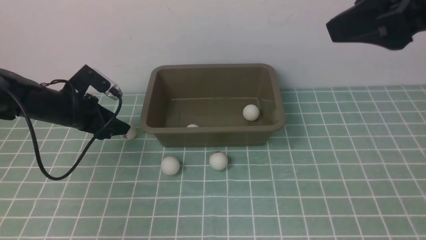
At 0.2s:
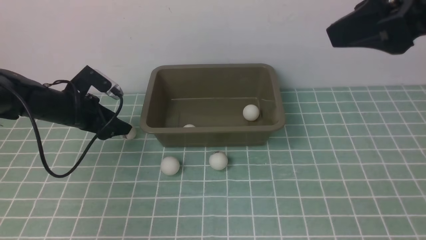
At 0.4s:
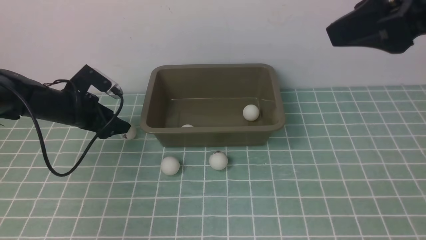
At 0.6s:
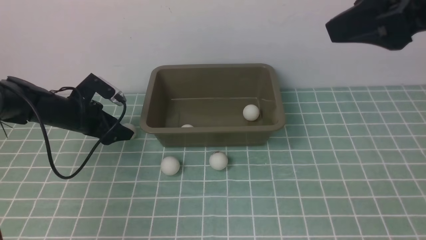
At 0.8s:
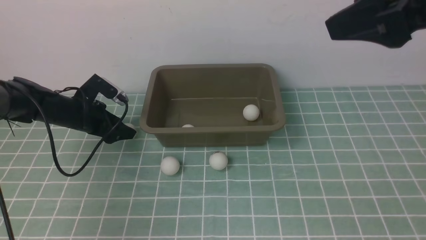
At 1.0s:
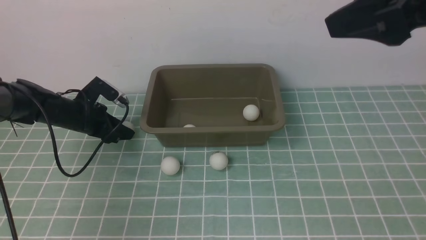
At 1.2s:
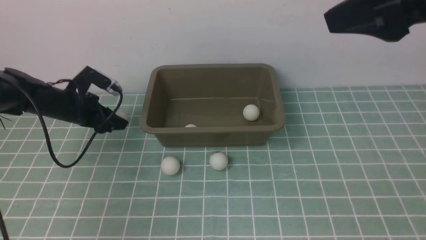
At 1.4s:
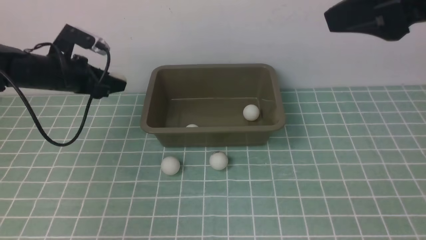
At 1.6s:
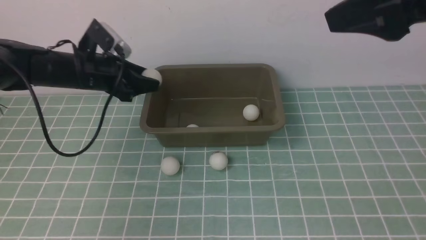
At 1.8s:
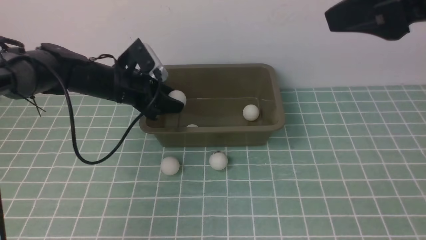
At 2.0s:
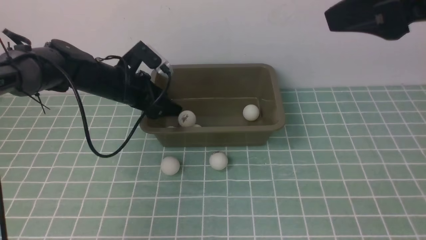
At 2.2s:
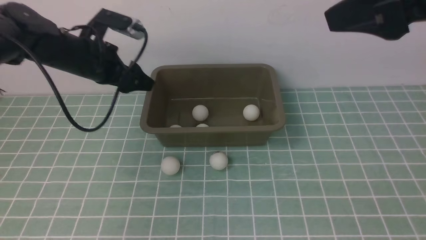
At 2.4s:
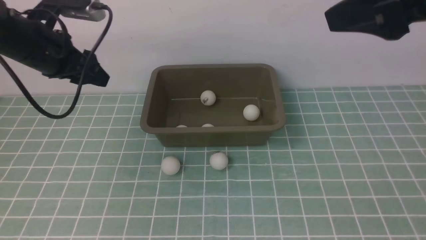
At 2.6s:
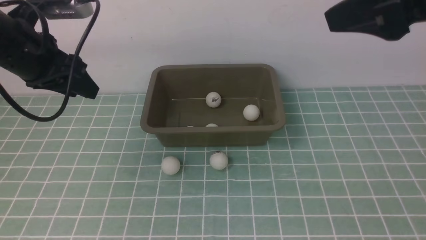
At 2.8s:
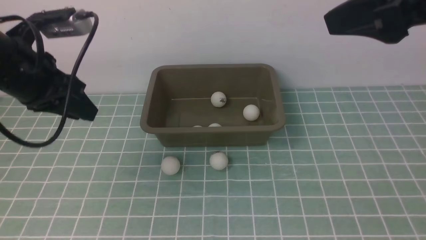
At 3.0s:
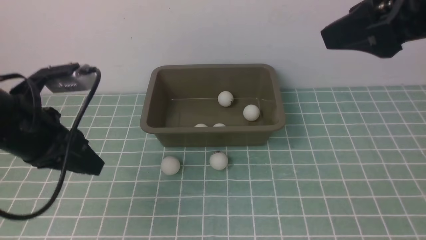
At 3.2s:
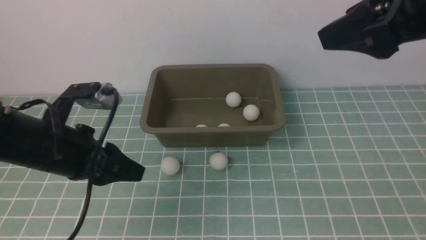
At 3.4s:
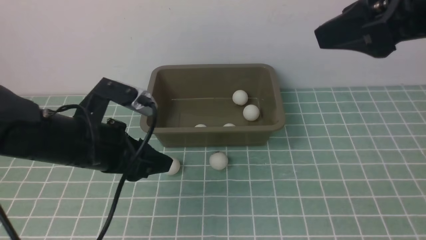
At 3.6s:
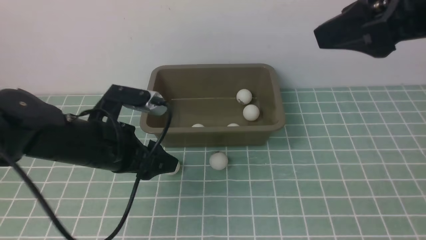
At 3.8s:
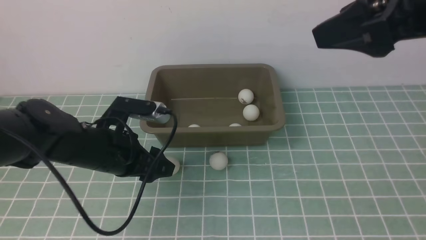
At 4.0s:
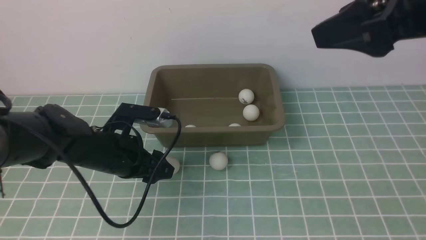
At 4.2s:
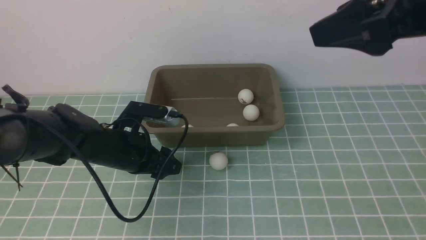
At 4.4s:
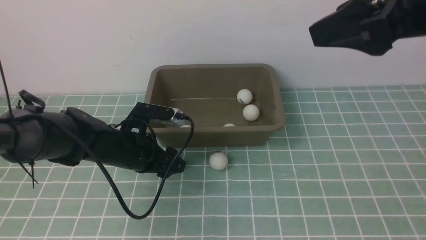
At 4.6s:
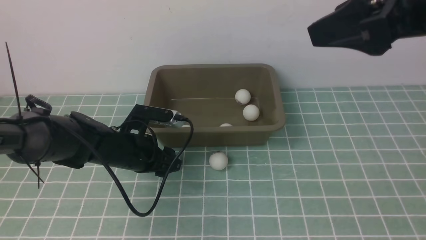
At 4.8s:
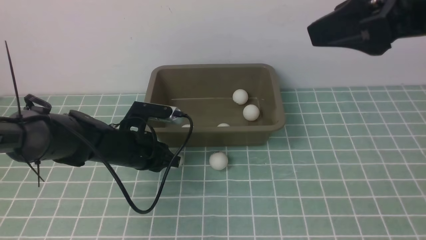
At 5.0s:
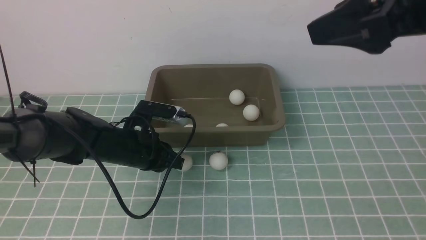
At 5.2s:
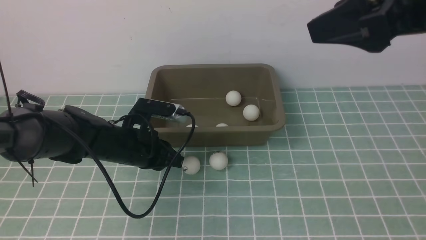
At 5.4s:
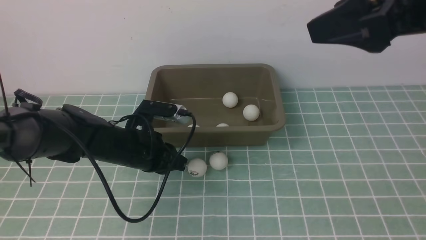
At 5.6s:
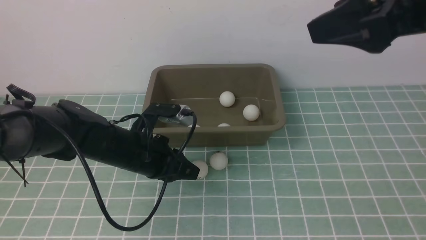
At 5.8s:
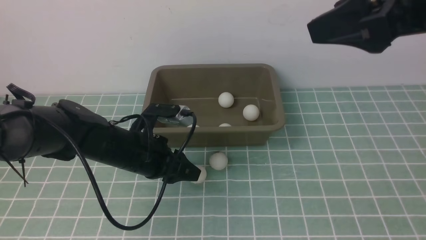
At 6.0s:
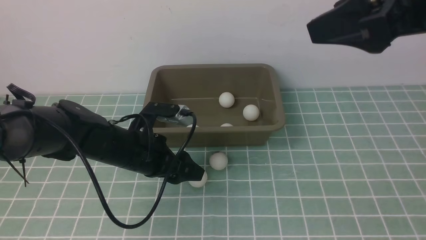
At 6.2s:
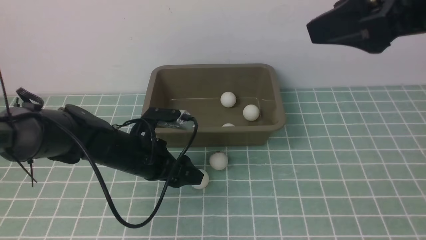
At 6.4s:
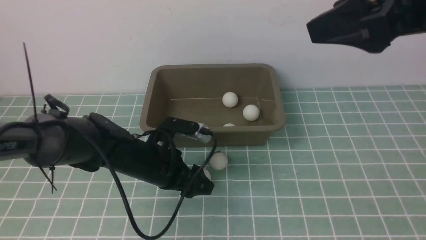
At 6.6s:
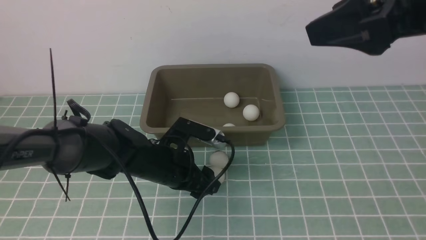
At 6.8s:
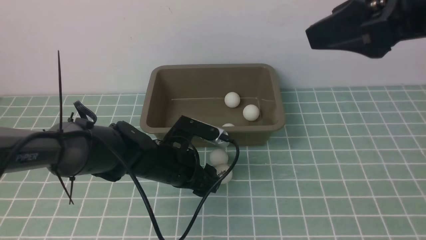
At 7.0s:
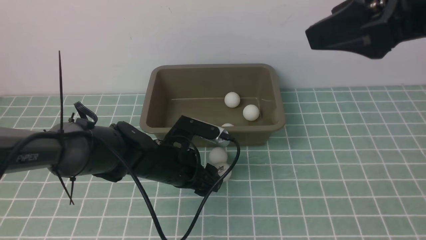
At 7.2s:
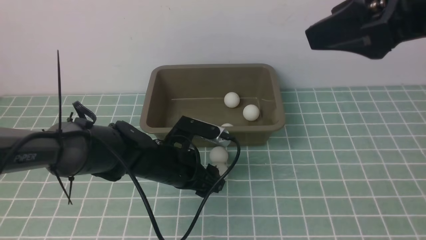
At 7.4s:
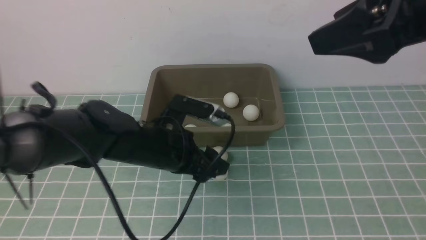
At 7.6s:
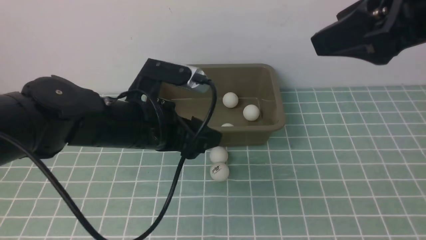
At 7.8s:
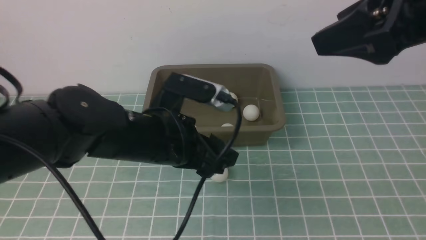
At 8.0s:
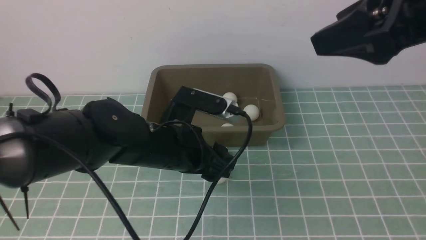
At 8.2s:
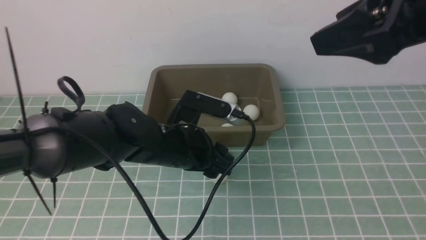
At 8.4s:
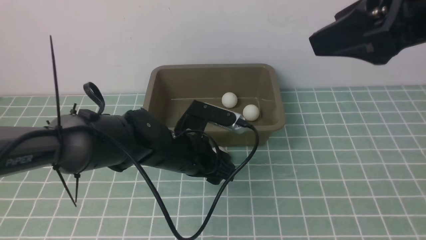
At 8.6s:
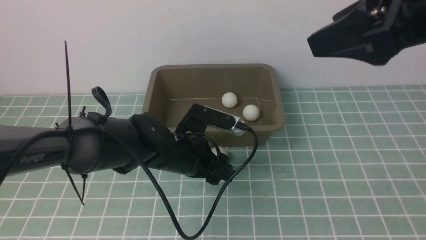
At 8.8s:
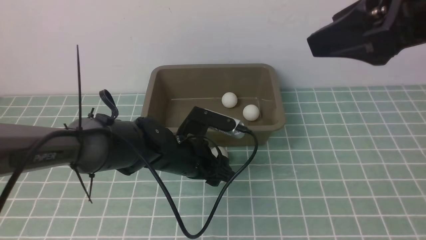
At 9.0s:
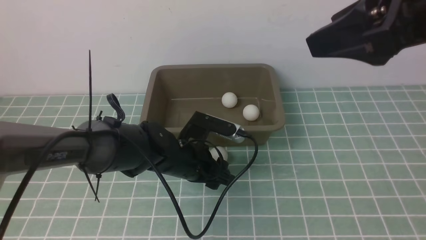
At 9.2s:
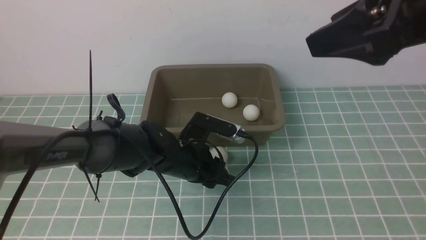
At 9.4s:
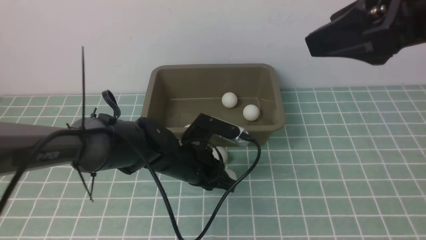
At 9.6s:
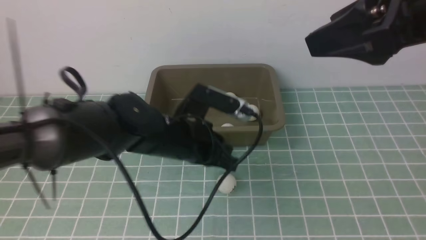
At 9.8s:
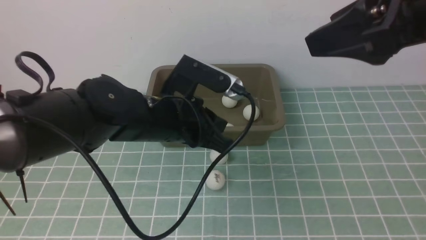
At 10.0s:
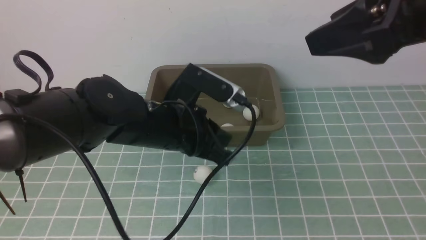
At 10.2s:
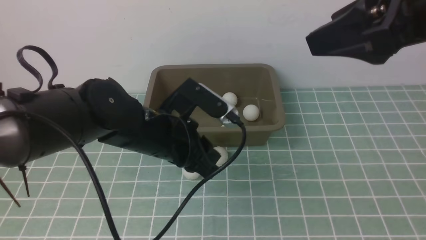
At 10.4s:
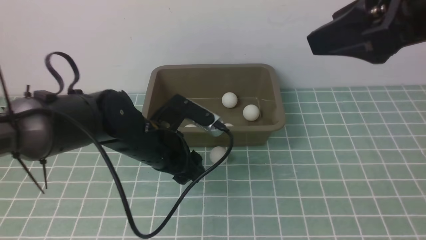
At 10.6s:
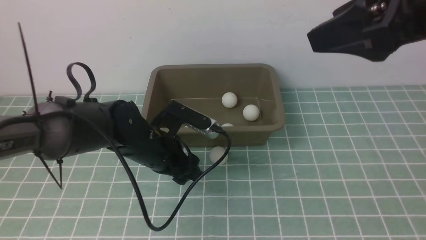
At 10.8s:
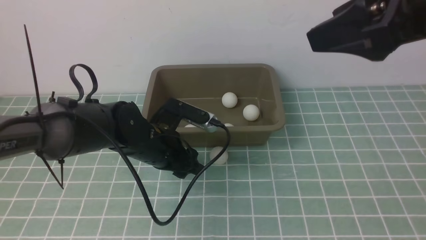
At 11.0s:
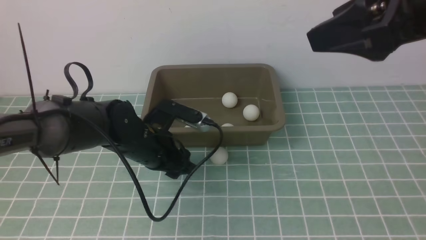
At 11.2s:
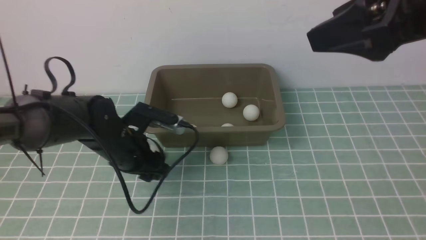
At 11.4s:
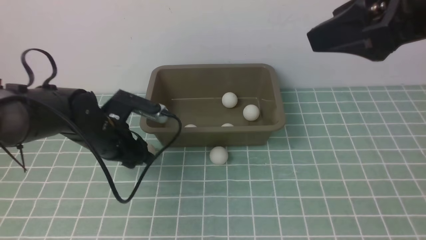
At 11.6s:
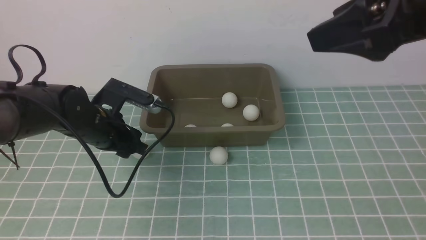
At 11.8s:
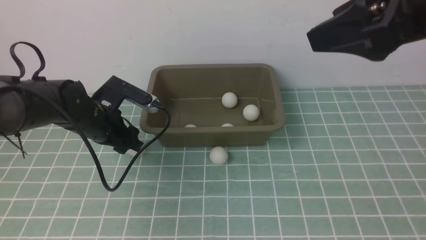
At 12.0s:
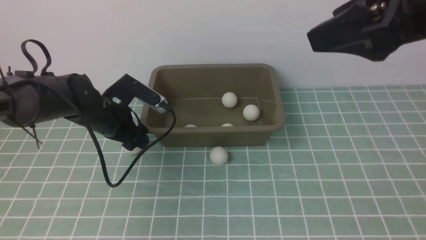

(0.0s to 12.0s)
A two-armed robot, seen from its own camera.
Step, 1.6s - 2.2s: use the left arm to put the table tennis ball into the box.
0.0s - 1.6s: The left gripper moves to the right, roughly 10 cm.
1.6s - 3.0s: The left gripper shifts about 15 cm backward and upward.
3.0s - 4.4s: The left gripper heads downward and to the right, covering some 15 cm, and opens up.
4.4s - 6.0s: The left gripper closes and opens again.
6.0s - 7.6s: The left gripper shifts approximately 10 cm upward.
7.6s - 9.0s: The left gripper heads downward, covering about 10 cm.
9.0s - 10.4s: The left gripper is displaced upward by some 5 cm, and closes, then reopens.
10.4s - 12.0s: The left gripper moves to the left and forward, roughly 15 cm.

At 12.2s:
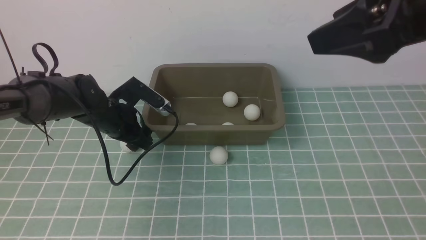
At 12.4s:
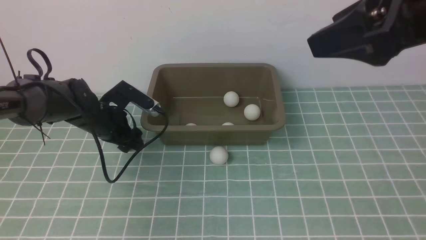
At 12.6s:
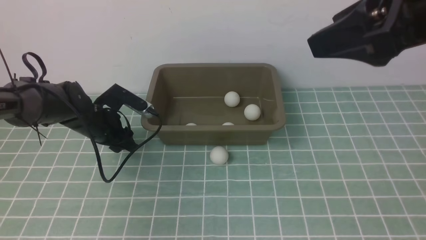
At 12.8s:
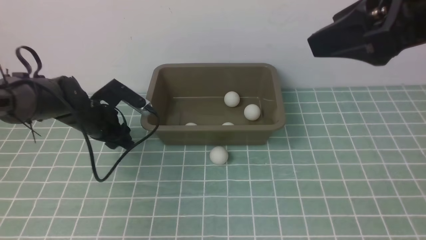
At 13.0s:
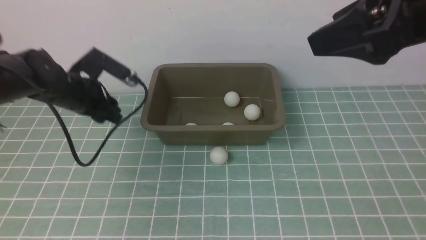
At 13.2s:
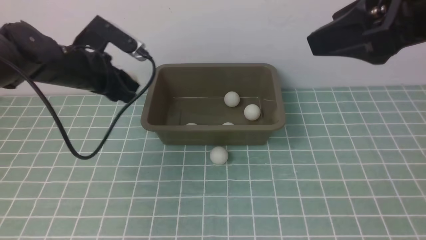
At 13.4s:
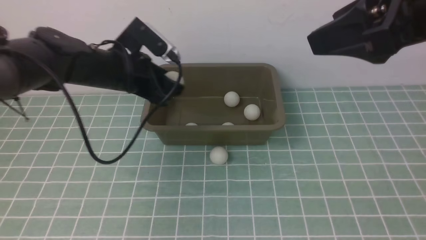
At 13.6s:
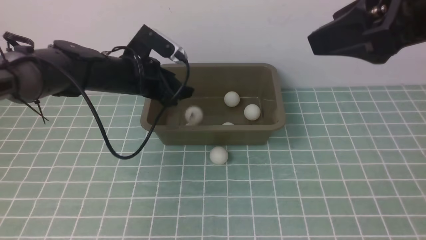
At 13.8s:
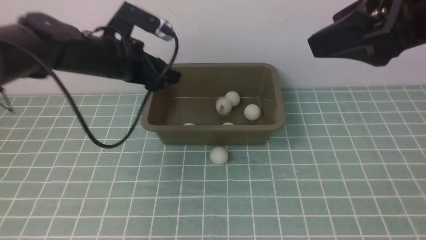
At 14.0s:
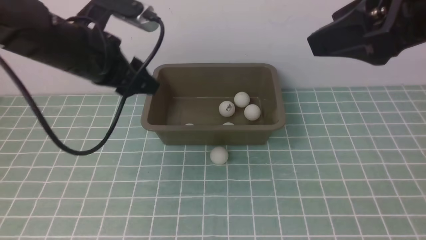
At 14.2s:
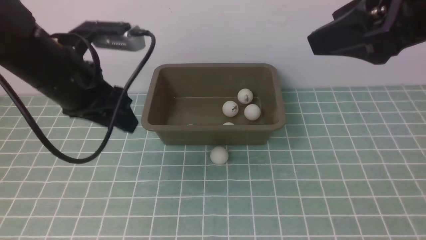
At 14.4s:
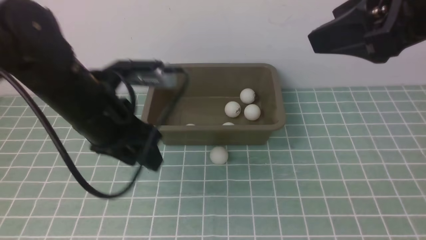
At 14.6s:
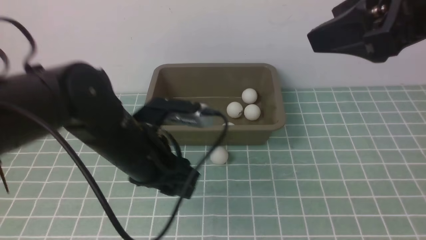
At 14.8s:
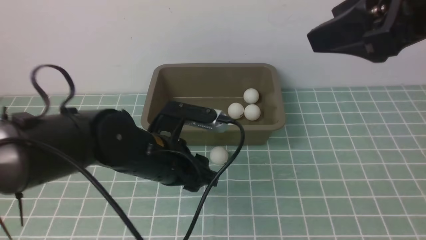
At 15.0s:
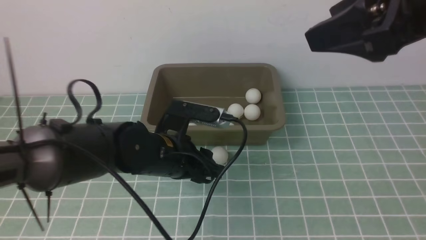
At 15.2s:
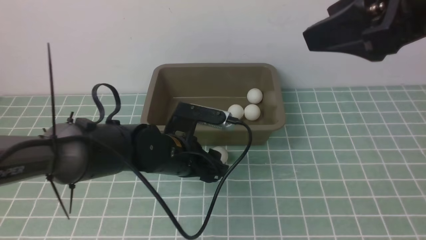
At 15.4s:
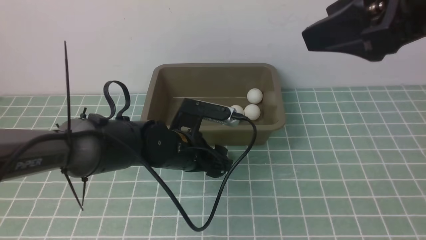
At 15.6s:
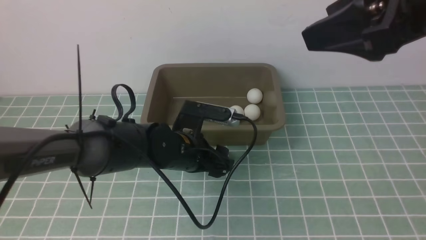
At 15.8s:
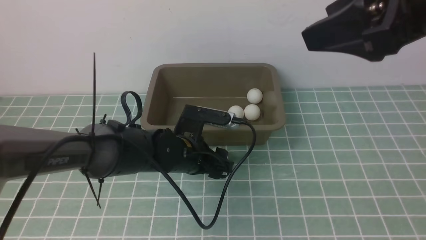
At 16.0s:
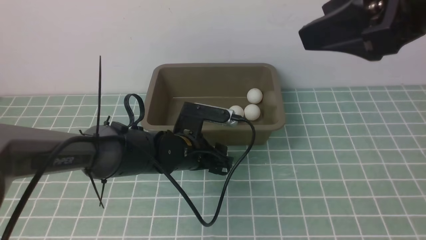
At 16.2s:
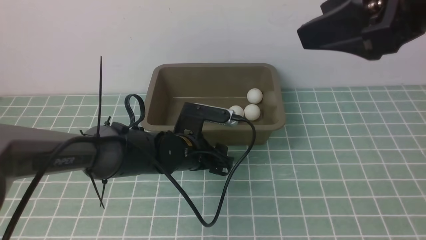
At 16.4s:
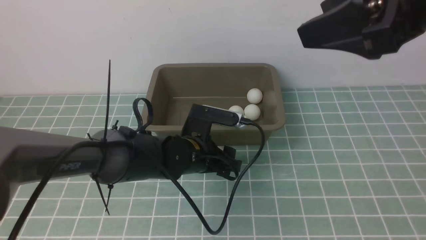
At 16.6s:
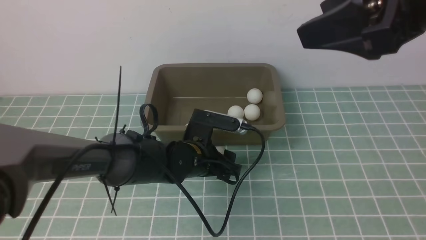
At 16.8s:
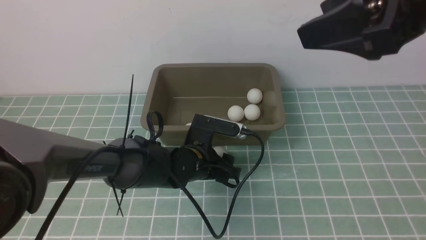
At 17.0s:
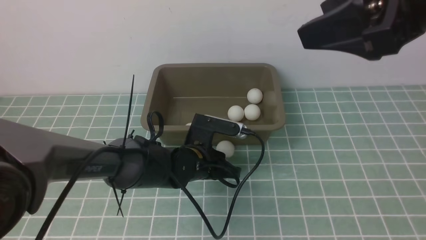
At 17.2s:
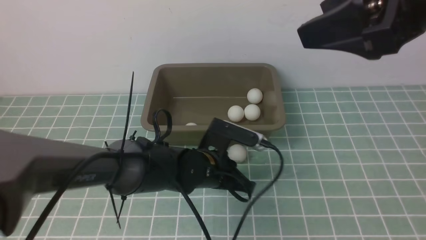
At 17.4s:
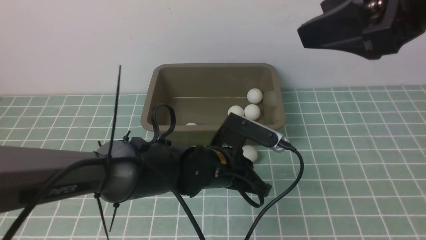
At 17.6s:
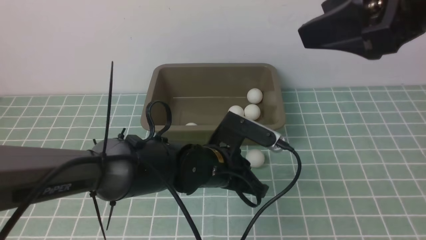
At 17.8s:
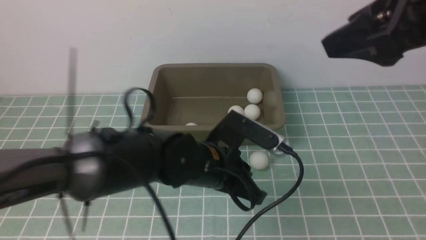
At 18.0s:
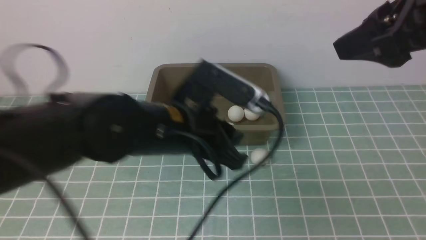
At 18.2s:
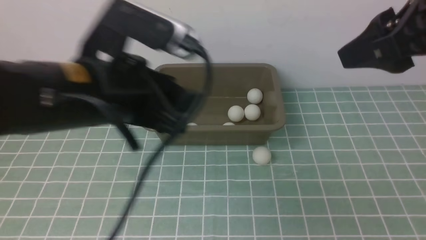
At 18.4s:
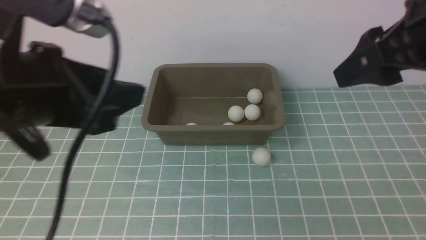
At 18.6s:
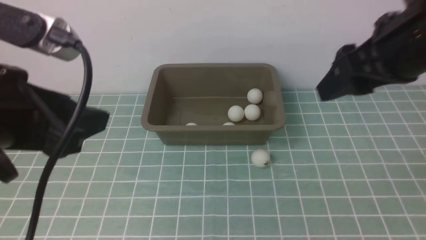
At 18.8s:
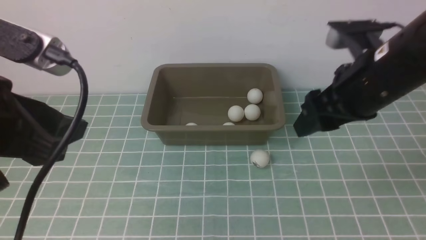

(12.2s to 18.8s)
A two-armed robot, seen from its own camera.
Step, 13.2s - 13.8s: use the left arm to put the table tennis ball into the box.
12.2s - 13.8s: The left gripper travels upward by approximately 10 cm.
13.8s - 15.4s: The left gripper moves downward, to the right and backward, approximately 15 cm.
15.4s - 17.2s: The left gripper ends up roughly 5 cm from where it was, and closes its fingers.
17.2s - 18.8s: The right gripper is displaced downward and forward by roughly 15 cm, while the left gripper travels upward, to the left and backward by approximately 35 cm, and opens.
